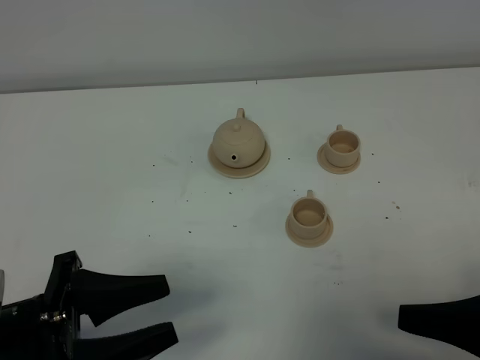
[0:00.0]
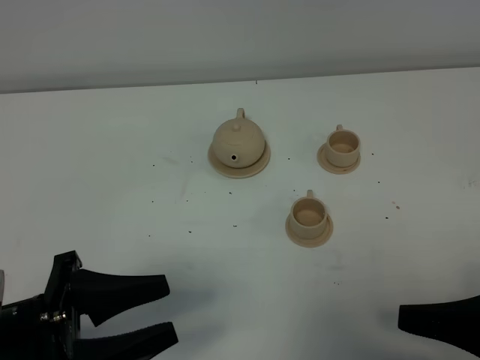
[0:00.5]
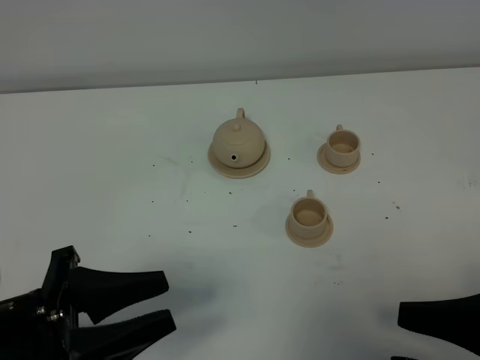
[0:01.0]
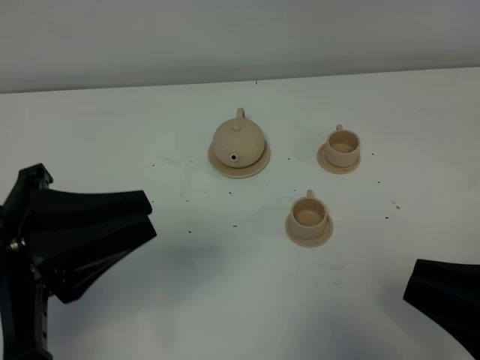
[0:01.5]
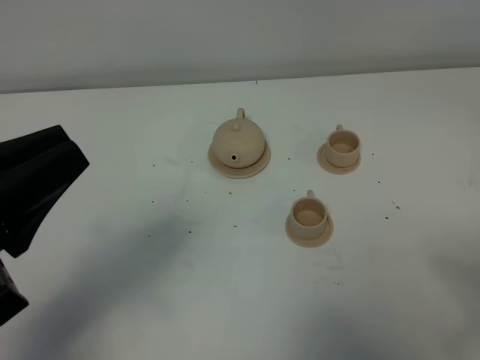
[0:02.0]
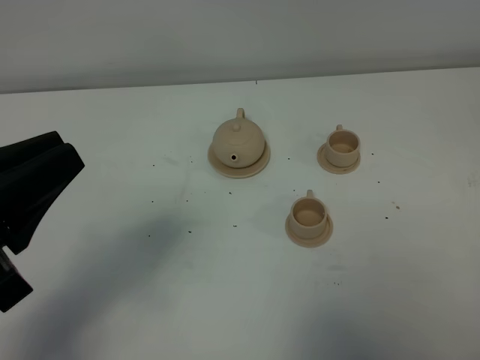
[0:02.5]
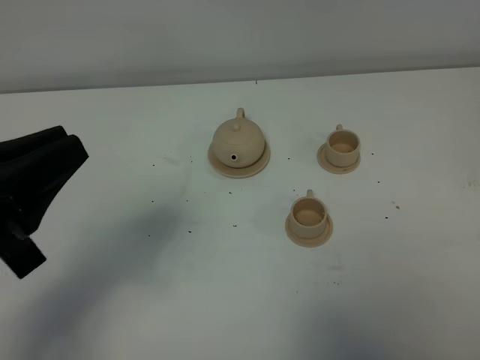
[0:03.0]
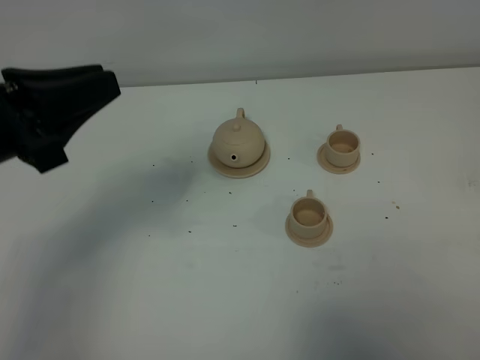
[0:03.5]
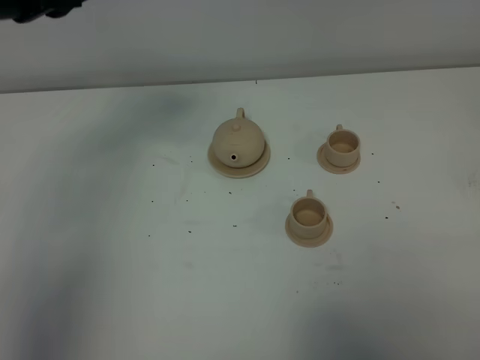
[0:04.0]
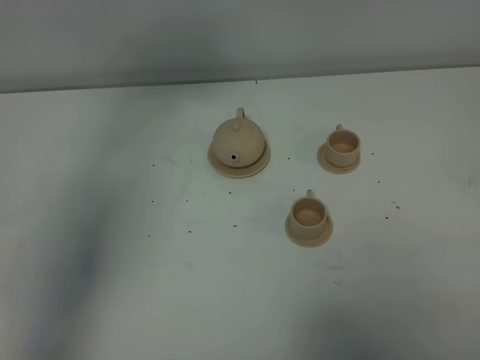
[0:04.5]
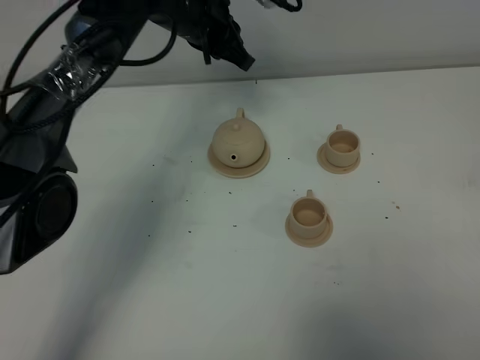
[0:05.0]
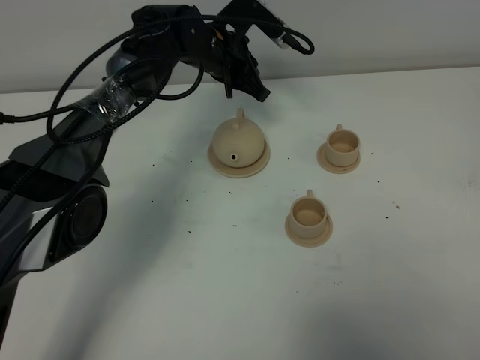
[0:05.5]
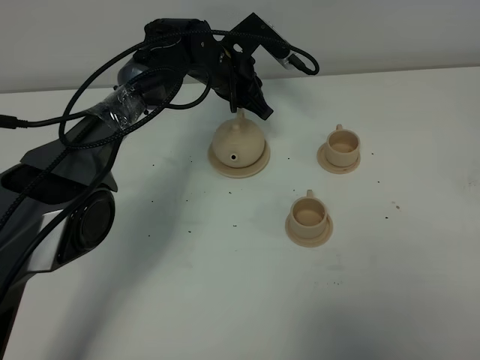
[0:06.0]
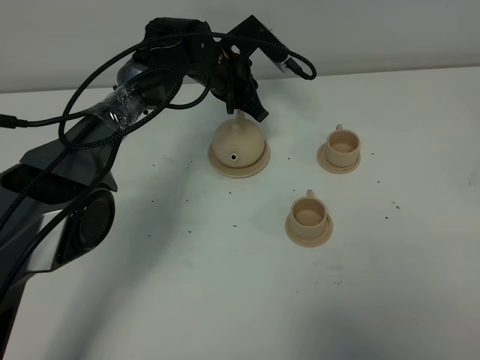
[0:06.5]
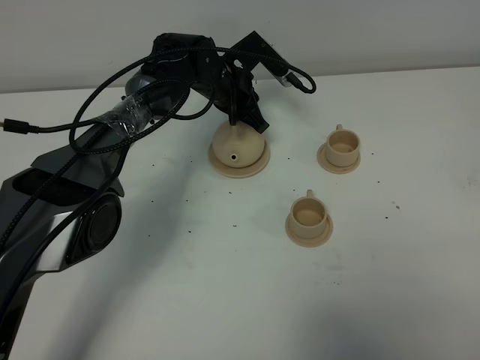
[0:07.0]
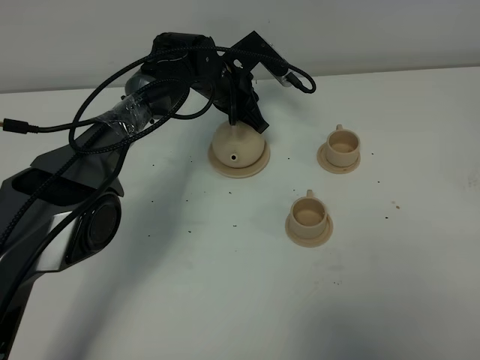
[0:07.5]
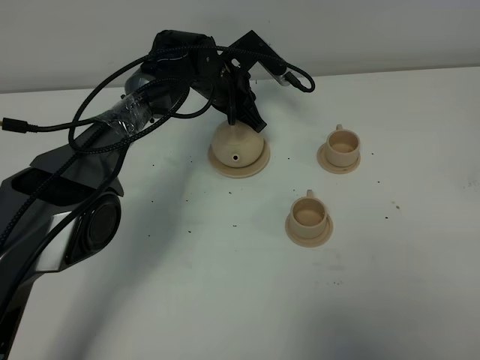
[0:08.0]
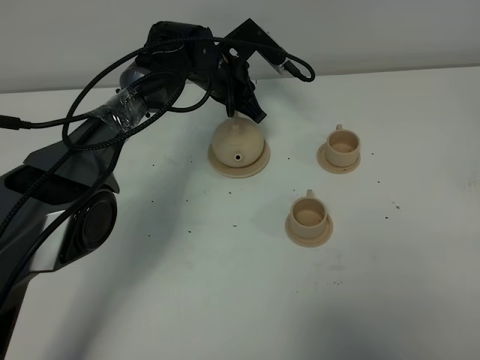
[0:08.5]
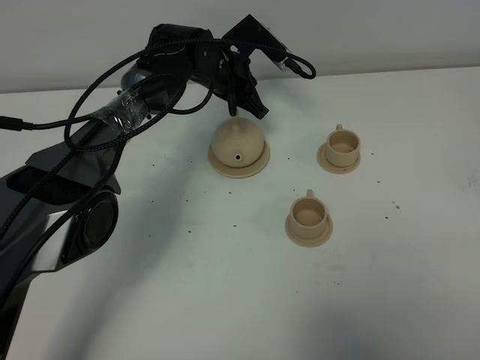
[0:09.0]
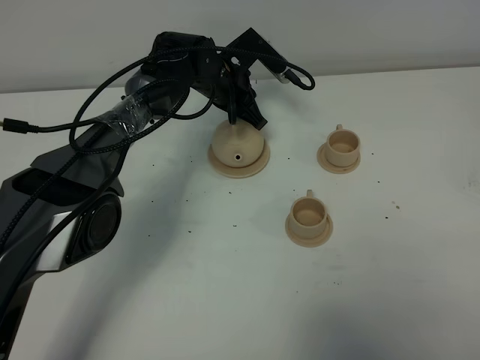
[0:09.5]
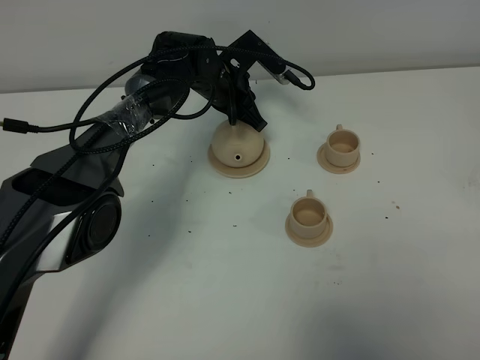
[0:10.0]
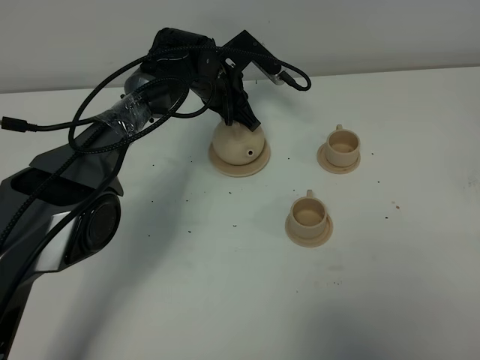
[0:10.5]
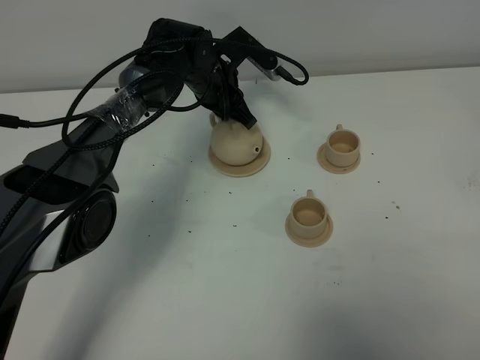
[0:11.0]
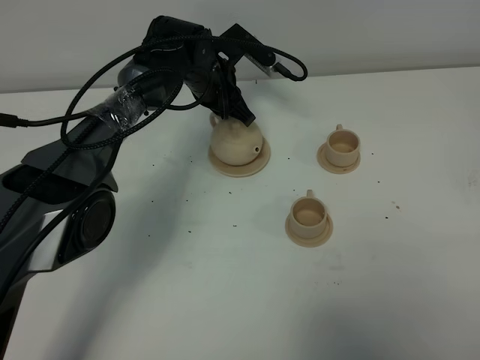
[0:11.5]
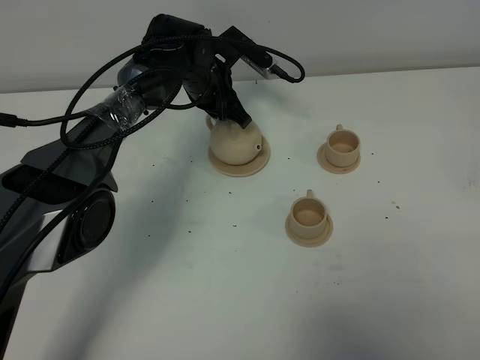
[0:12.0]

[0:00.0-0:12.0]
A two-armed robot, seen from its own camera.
Task of the whole recording: grasp the brown teapot and pour the tea into the two brown teacups one by one, put the brown teapot back in its original place.
0:00.0 to 0:02.0: The right gripper heads upward, covering some 5 cm, and closes its fingers. Meanwhile the left gripper travels upward by some 10 cm, and closes.
0:02.0 to 0:04.0: The right gripper is displaced downward by about 5 cm. The left gripper is displaced forward by approximately 20 cm.
0:04.0 to 0:06.0: The left gripper heads downward, forward and to the right, covering approximately 35 cm.
0:06.0 to 0:12.0: The grippers make only small movements.

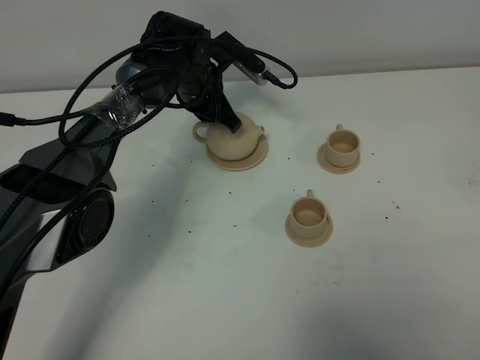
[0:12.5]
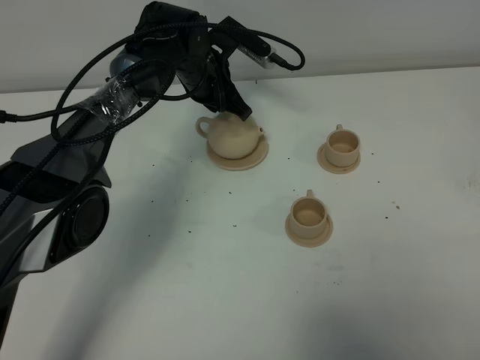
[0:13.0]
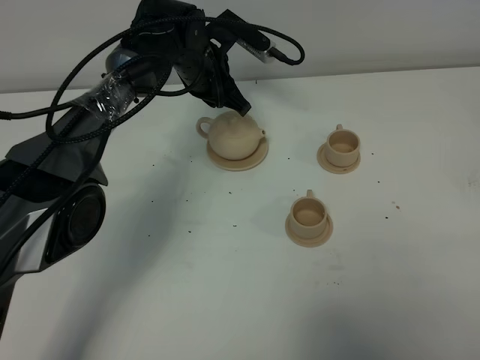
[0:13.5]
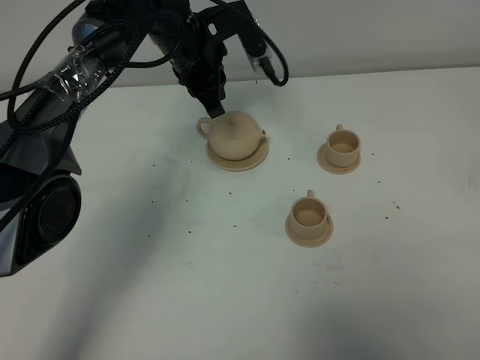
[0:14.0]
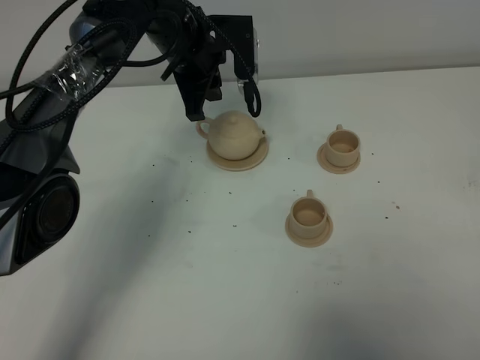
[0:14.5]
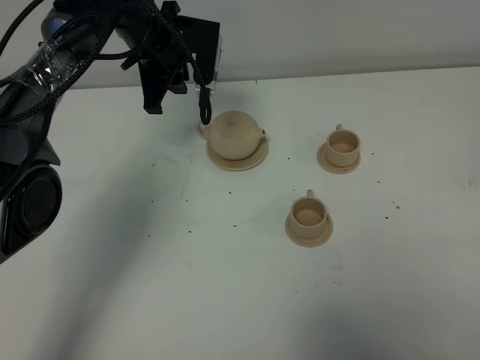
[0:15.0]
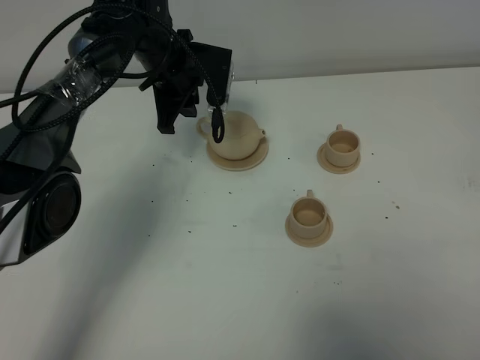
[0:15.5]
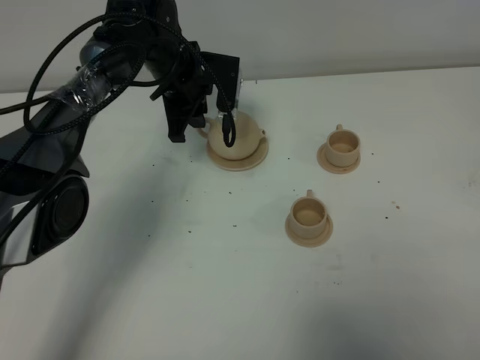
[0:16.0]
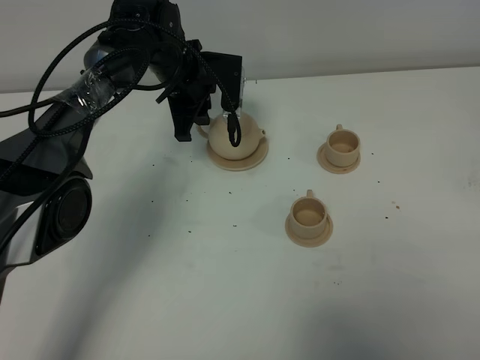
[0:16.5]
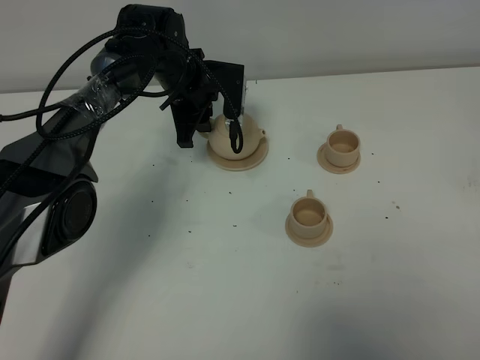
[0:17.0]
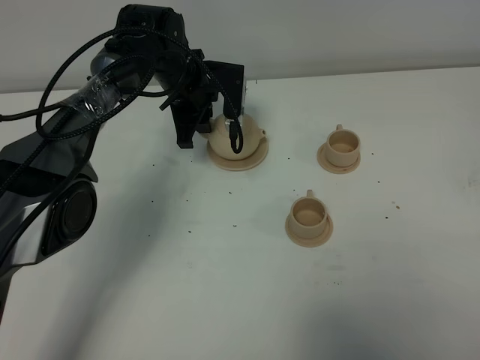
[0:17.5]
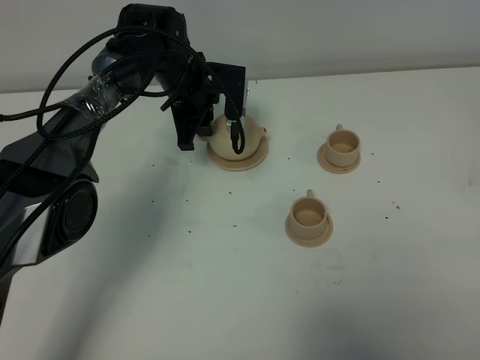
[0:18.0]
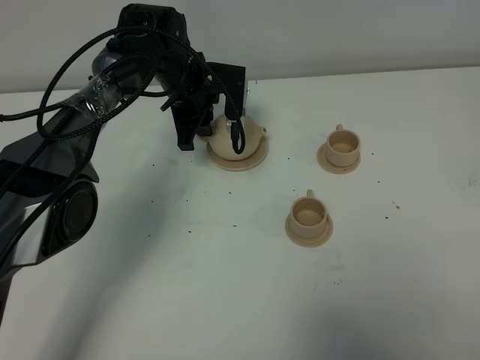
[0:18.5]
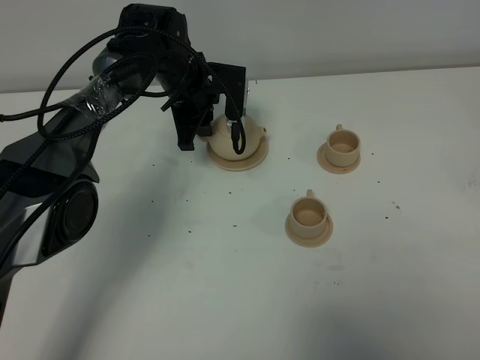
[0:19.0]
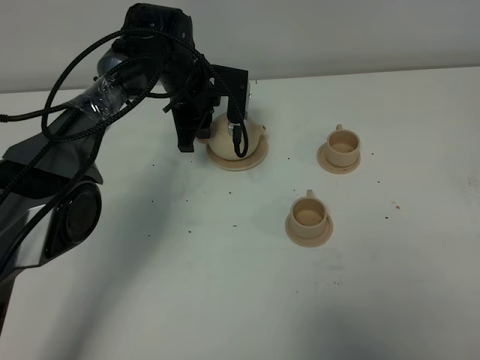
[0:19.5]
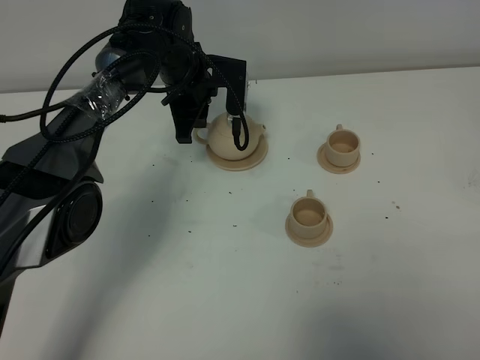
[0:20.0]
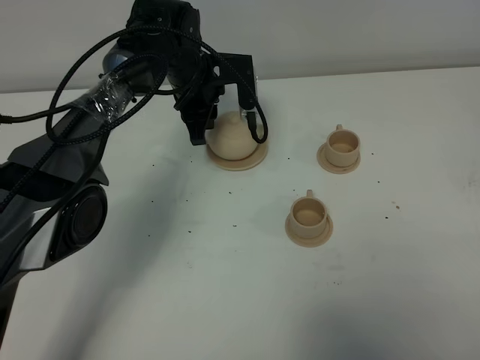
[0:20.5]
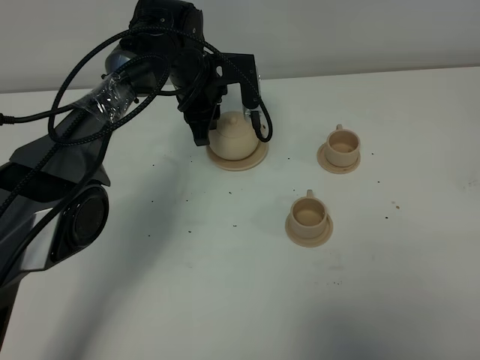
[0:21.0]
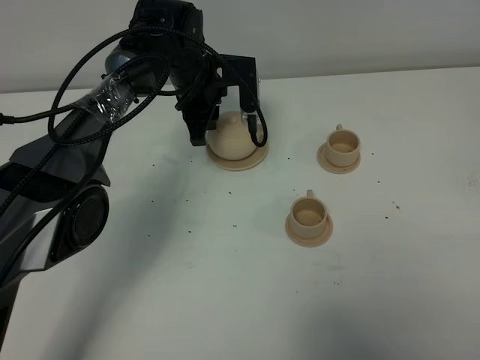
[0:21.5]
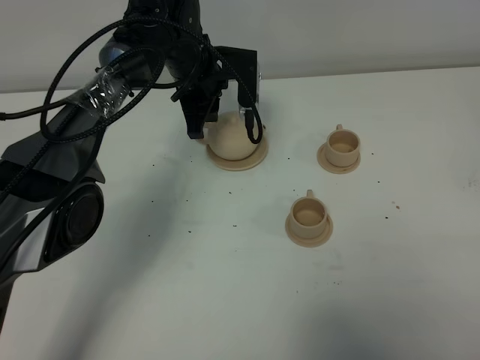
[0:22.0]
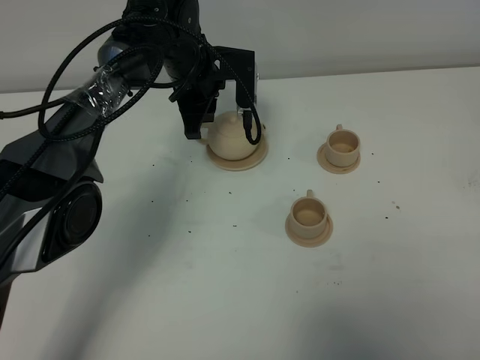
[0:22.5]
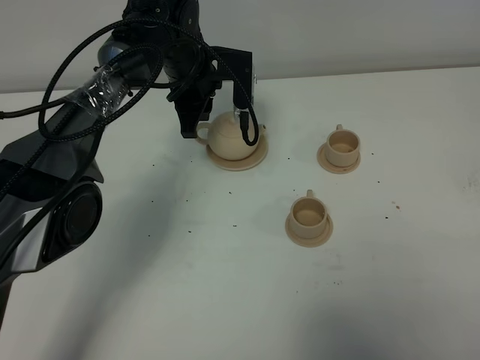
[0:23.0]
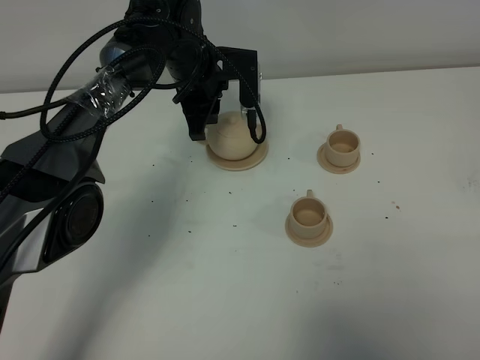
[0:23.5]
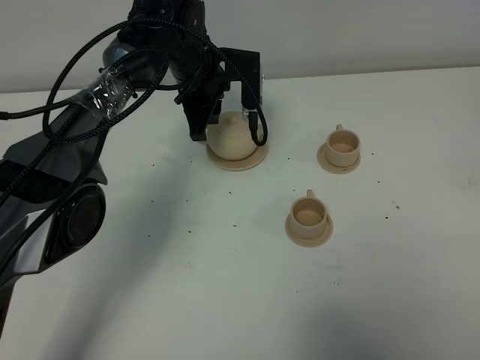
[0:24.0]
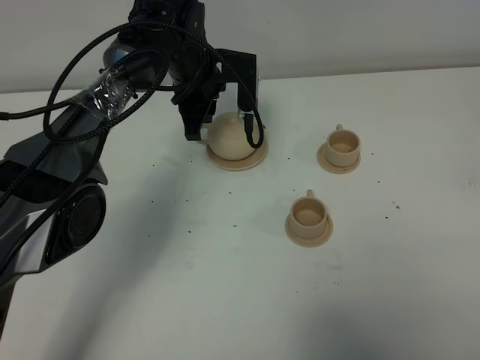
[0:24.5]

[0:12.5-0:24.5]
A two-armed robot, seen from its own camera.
Task of the whole recording: grasp the brown teapot and pour the tea into the two brown teacups one by one, put the brown teapot back in its original place.
0:12.5 to 0:14.5: The left gripper heads upward, covering roughly 10 cm.
0:14.5 to 0:16.5: The left gripper travels downward by roughly 5 cm, and opens.
0:16.5 to 0:18.5: Neither gripper changes place.
0:18.5 to 0:22.5: There are only small adjustments of the grippers.
0:22.5 to 0:24.5: Neither gripper changes place.

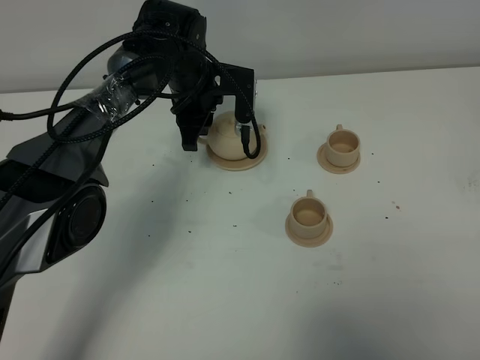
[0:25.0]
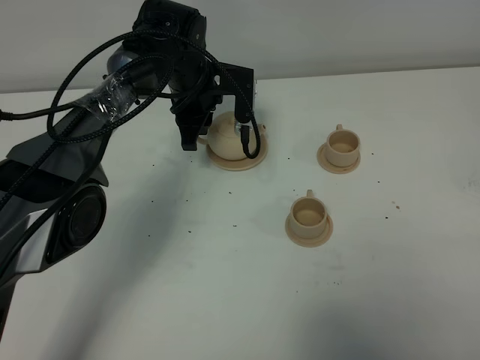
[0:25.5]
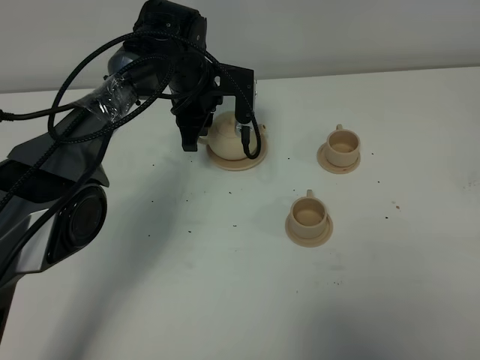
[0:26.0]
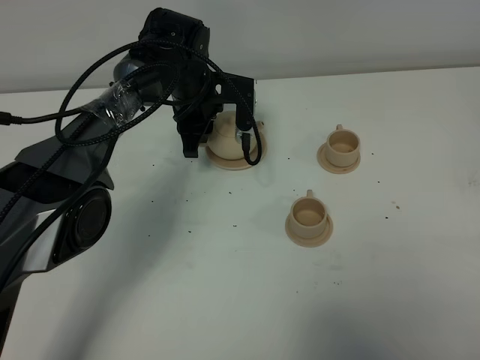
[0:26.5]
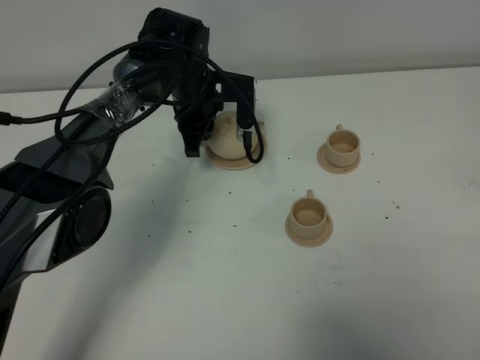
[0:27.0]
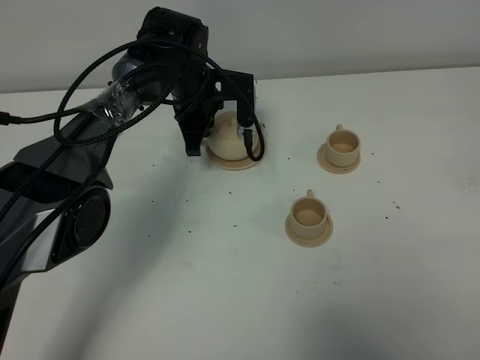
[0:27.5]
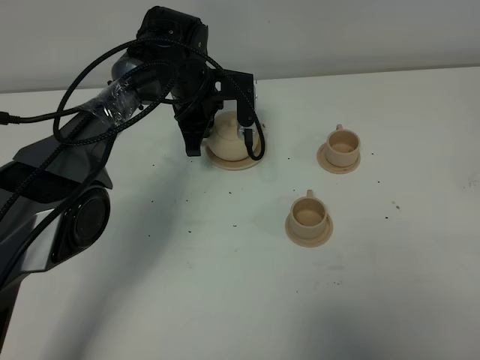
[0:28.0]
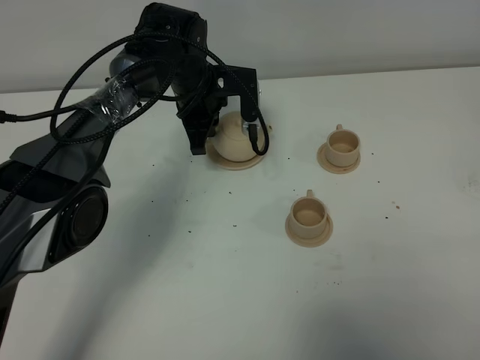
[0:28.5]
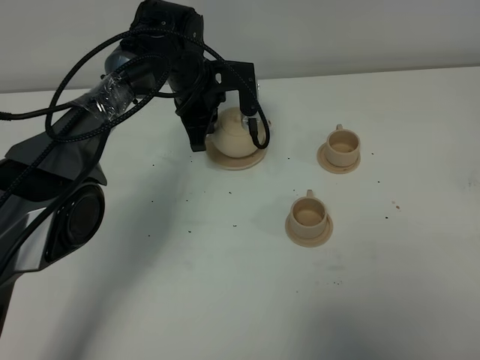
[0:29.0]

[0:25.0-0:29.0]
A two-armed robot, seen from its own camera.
Task of the whole recording: grasp the brown teapot and pour the tea into the two brown teacups one by one, put the brown teapot back in its original place.
Step, 0:25.0 to 0:28.5: Pick up the teapot with the left gripper.
0:25.0 to 0:27.0: There are only small adjustments of the grippers.
0:27.0 to 0:29.0: The left gripper closes its fingers.
